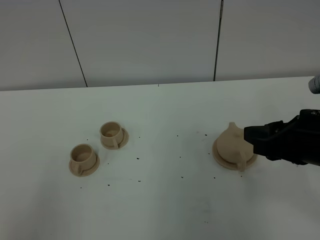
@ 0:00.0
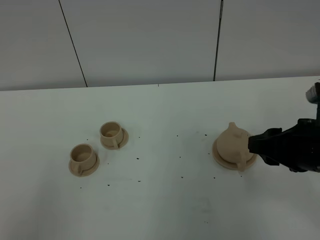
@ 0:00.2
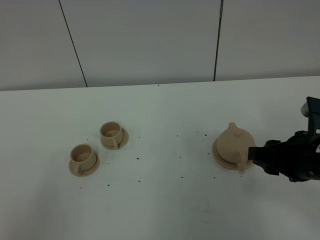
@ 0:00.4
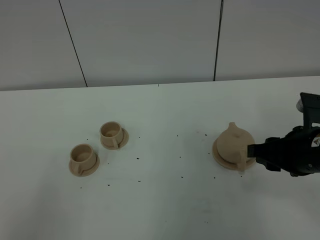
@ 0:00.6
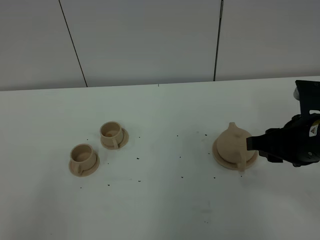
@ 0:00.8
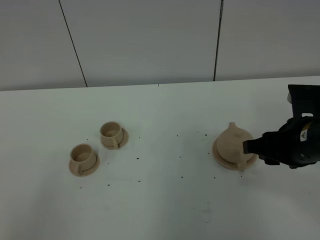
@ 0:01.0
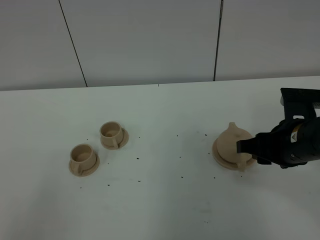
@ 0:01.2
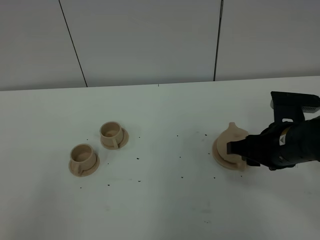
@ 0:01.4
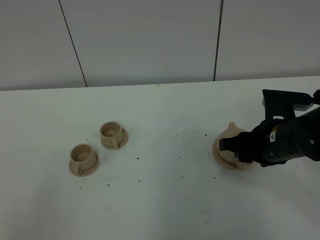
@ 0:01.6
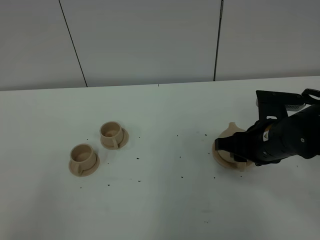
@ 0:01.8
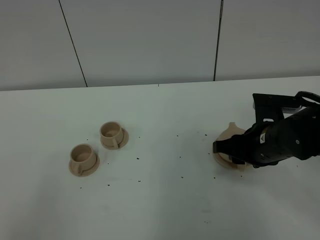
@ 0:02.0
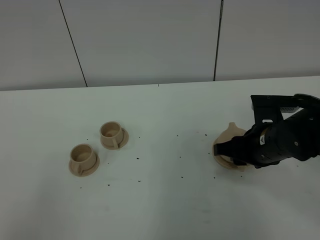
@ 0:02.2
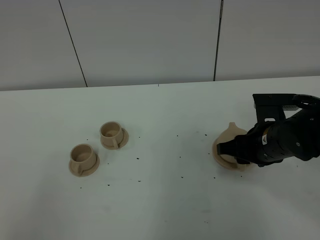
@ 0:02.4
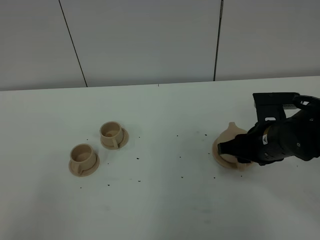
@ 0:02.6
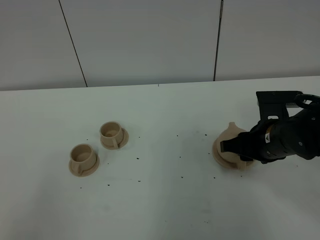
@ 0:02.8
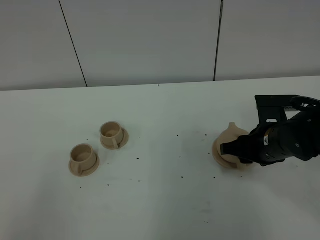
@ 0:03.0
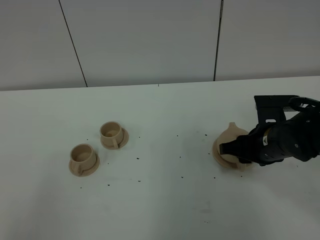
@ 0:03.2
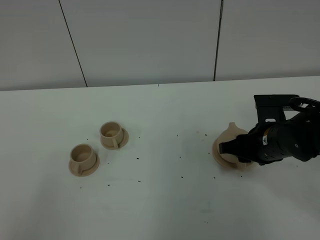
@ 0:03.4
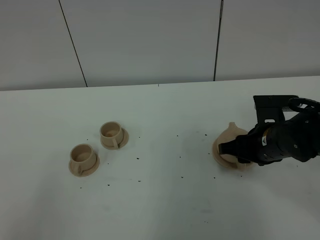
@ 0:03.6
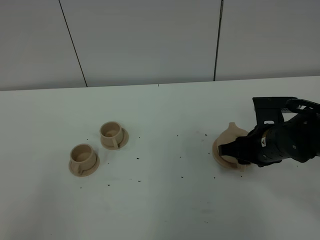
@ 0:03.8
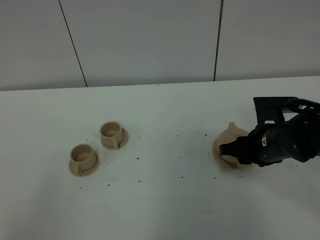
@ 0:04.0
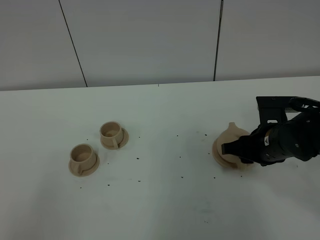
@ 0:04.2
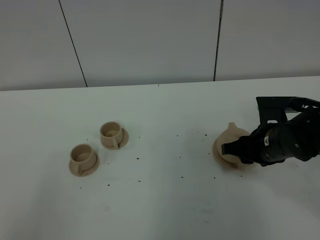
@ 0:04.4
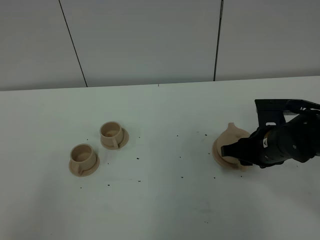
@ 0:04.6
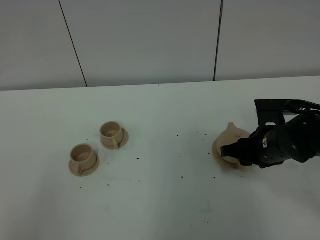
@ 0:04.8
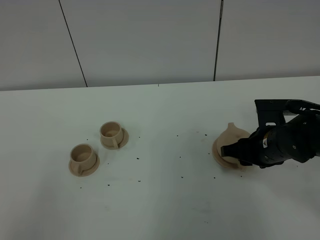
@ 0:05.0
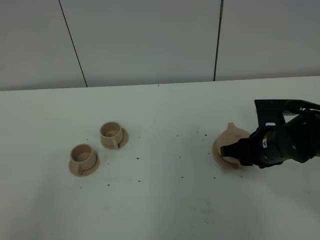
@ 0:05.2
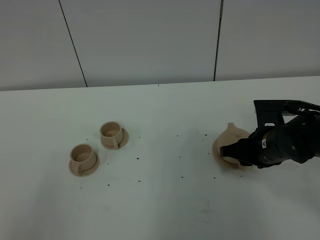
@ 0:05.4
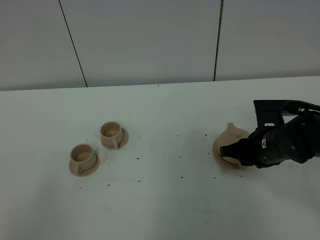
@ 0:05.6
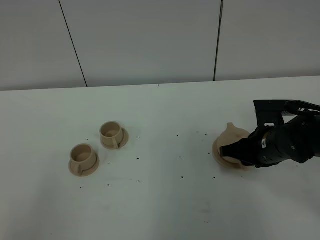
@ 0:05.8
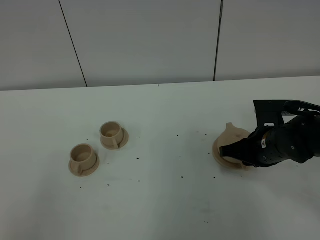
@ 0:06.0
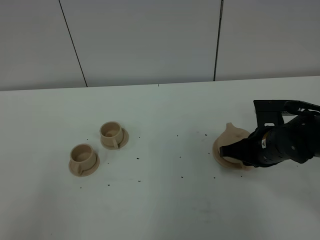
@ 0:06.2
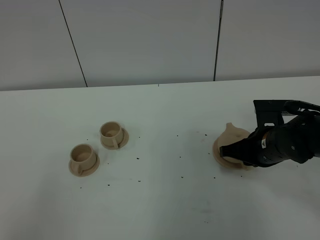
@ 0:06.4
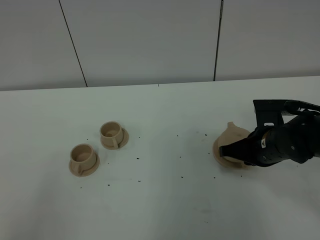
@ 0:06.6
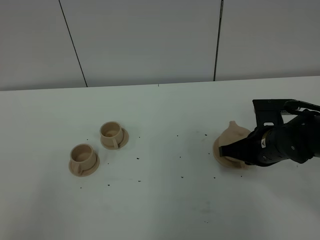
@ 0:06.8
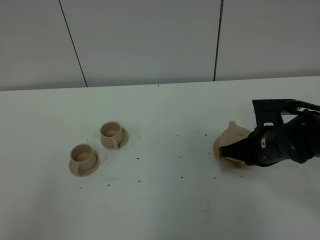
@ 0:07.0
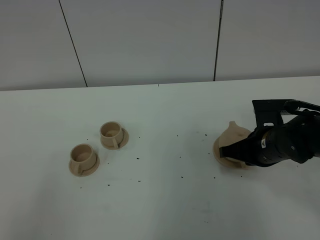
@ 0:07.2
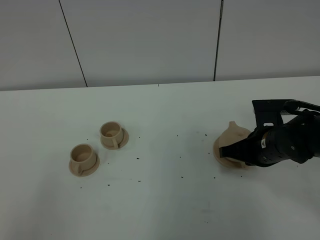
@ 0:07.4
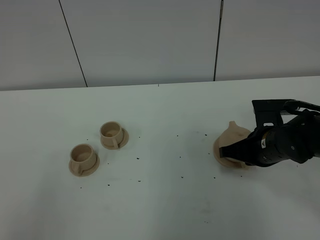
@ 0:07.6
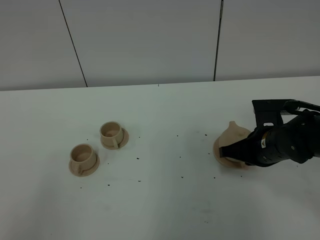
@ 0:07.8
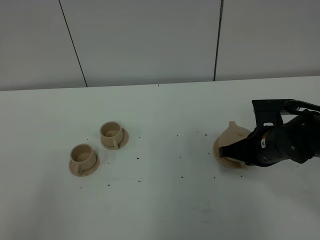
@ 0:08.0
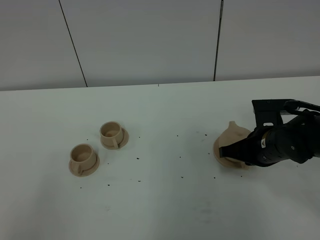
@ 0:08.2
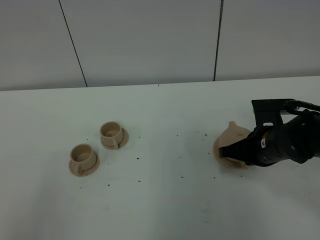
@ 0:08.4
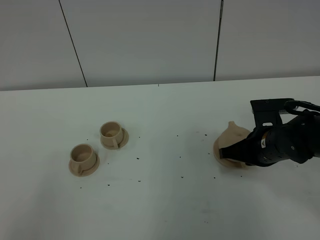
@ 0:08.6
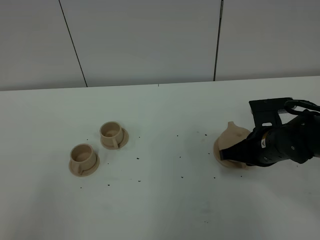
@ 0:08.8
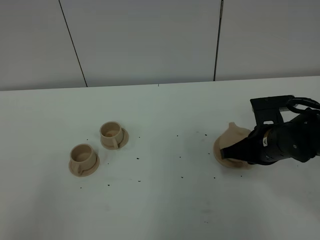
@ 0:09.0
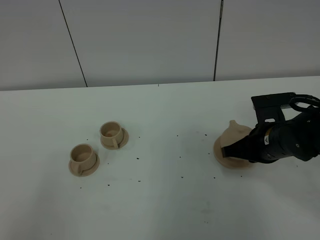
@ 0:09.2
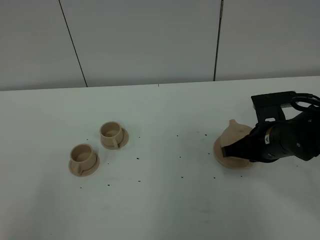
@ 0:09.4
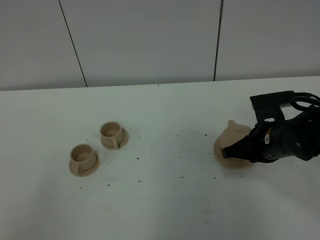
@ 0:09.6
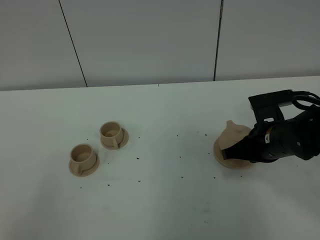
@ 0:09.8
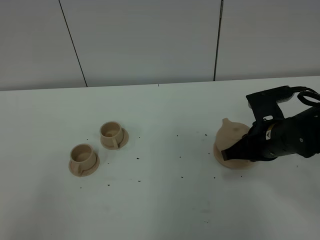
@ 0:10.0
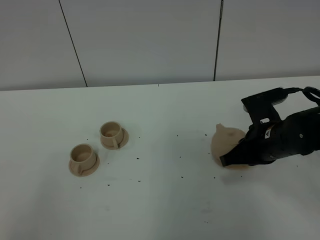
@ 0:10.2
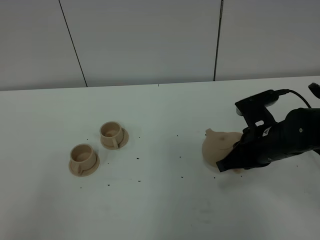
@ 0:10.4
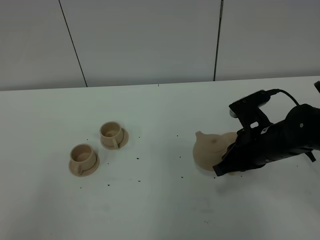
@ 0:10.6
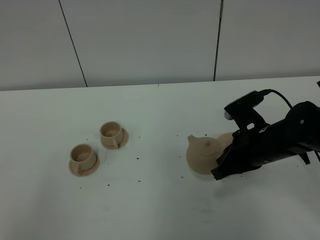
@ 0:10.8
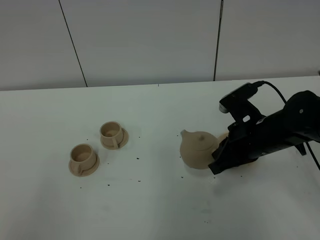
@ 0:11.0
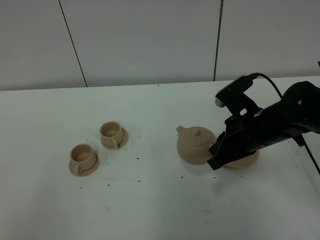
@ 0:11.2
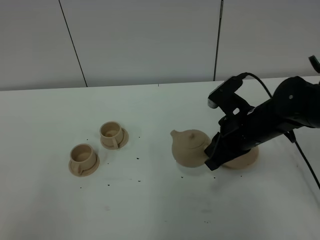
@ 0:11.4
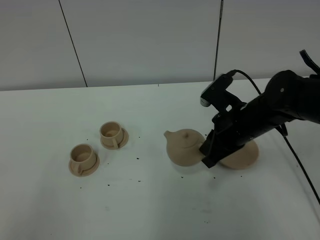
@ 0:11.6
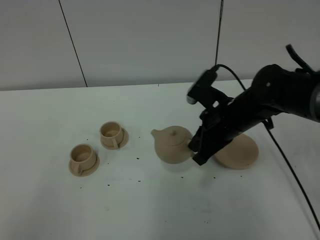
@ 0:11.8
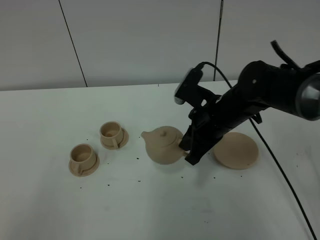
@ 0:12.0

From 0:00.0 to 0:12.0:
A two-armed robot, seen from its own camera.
Task of the whole recording: grasp the brown teapot and pour the tea into the two brown teacups one by one, put the brown teapot back in its original place.
From 0:00.0 to 0:01.6: The right gripper heads downward and forward, covering some 10 cm.
From 0:01.6 to 0:03.0: There are only small adjustments of the grippers.
From 0:03.0 to 0:04.4: The two grippers keep their place.
From 0:04.4 to 0:06.0: The right gripper closes its fingers.
From 0:06.0 to 0:07.6: The two grippers keep their place.
From 0:07.6 to 0:09.0: Both grippers stay put.
From 0:09.0 to 0:10.4: There are only small adjustments of the grippers.
From 0:10.4 to 0:12.0: The right gripper shifts some 10 cm to the left.

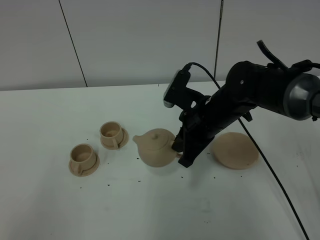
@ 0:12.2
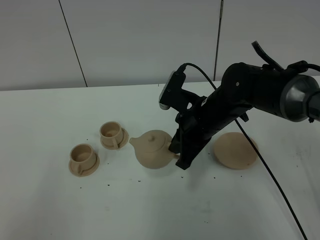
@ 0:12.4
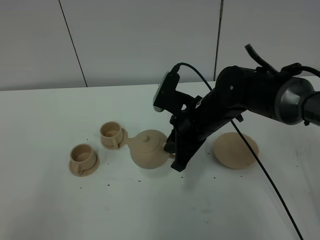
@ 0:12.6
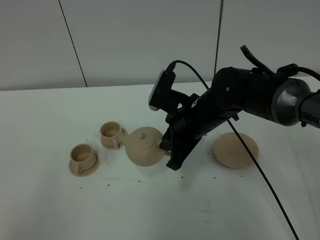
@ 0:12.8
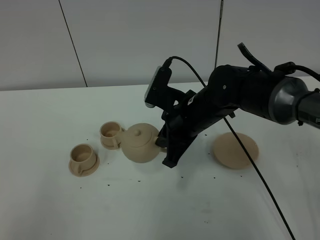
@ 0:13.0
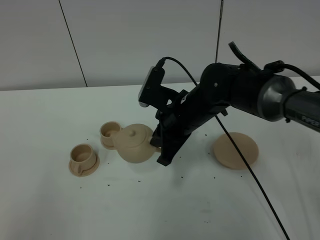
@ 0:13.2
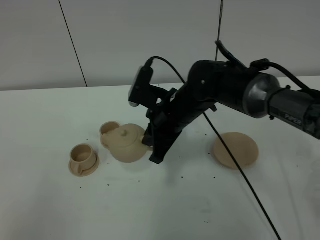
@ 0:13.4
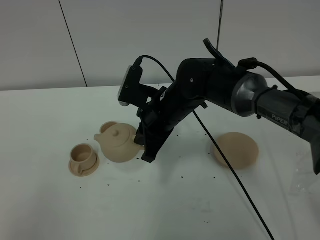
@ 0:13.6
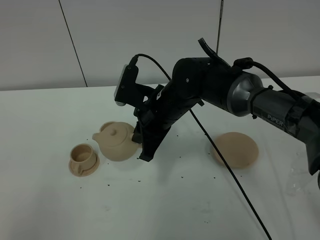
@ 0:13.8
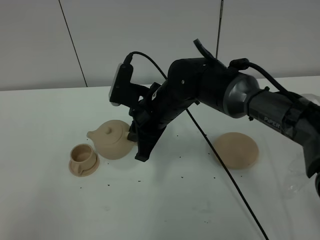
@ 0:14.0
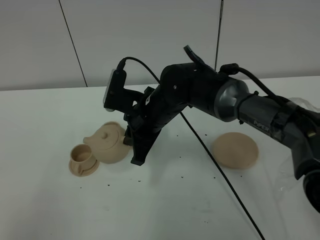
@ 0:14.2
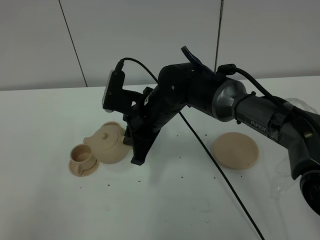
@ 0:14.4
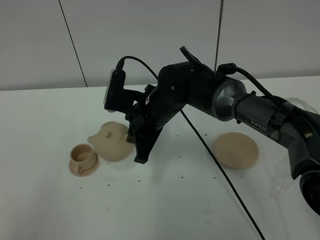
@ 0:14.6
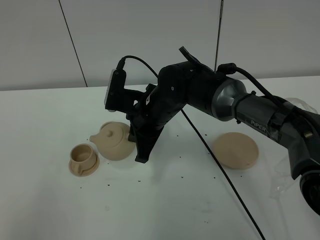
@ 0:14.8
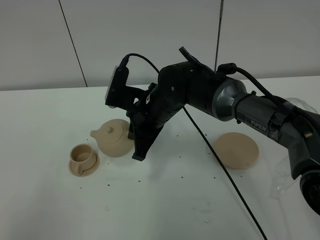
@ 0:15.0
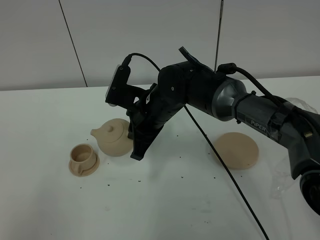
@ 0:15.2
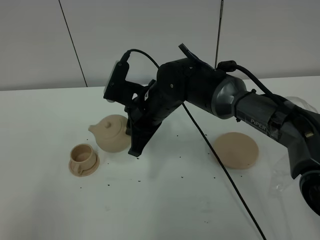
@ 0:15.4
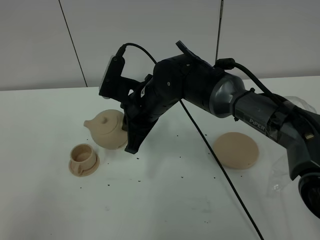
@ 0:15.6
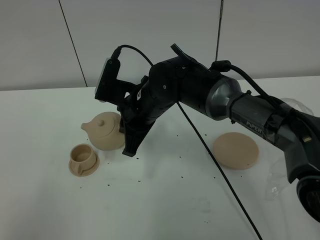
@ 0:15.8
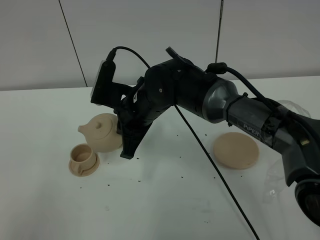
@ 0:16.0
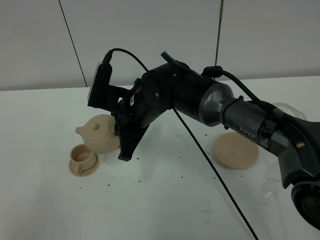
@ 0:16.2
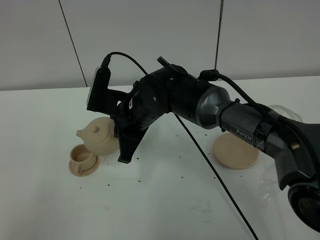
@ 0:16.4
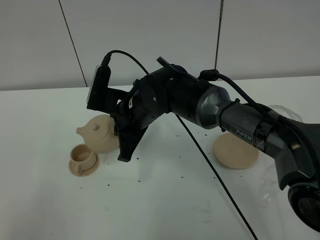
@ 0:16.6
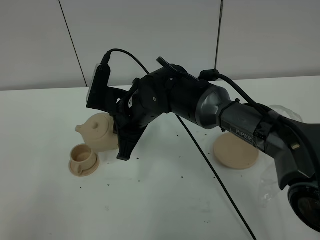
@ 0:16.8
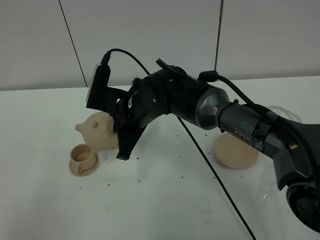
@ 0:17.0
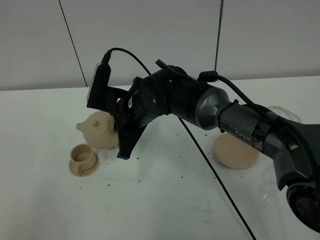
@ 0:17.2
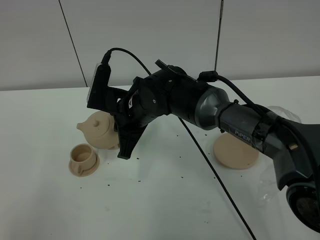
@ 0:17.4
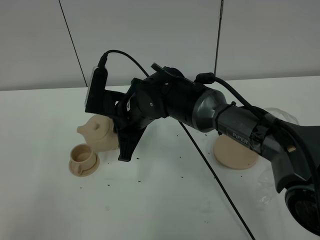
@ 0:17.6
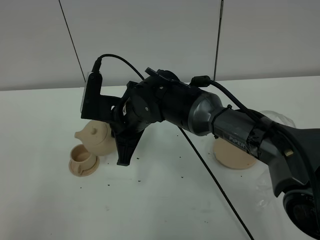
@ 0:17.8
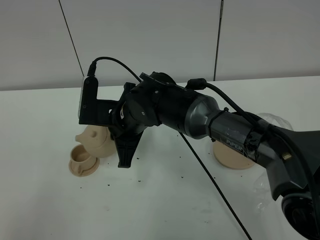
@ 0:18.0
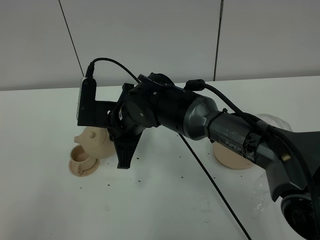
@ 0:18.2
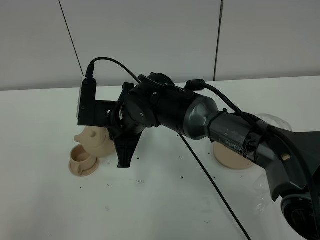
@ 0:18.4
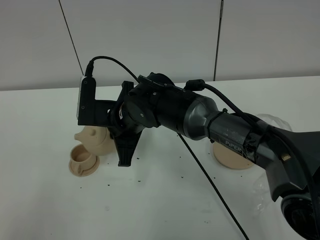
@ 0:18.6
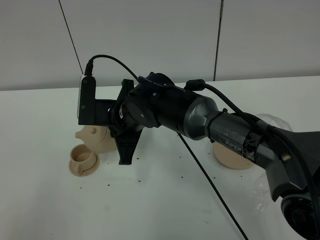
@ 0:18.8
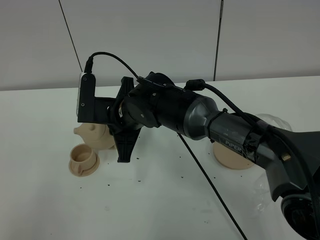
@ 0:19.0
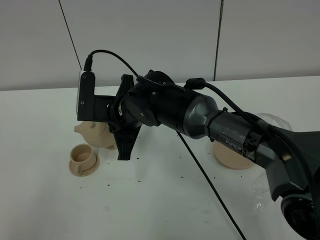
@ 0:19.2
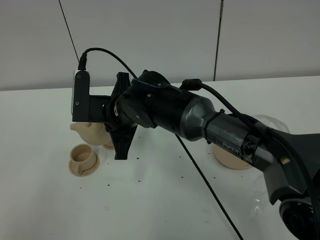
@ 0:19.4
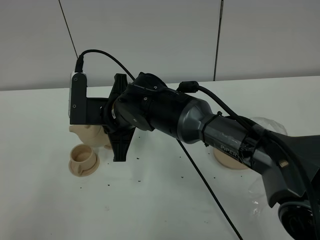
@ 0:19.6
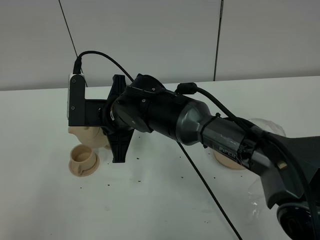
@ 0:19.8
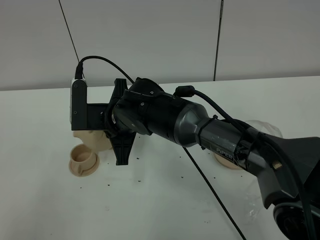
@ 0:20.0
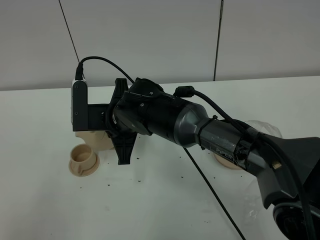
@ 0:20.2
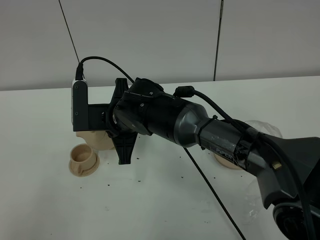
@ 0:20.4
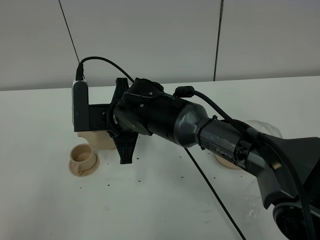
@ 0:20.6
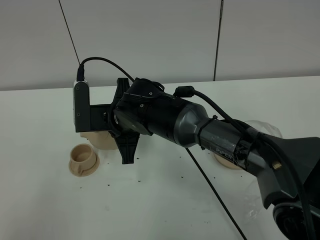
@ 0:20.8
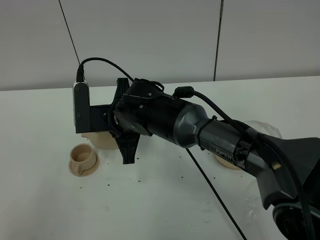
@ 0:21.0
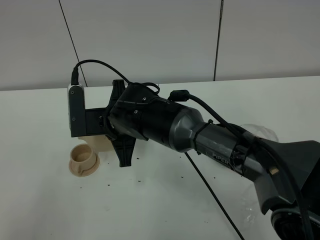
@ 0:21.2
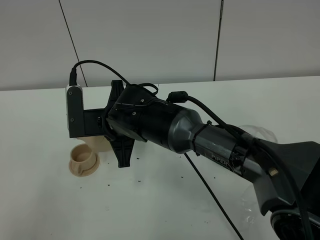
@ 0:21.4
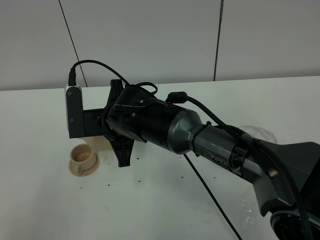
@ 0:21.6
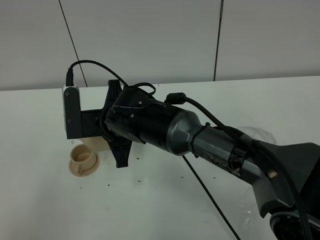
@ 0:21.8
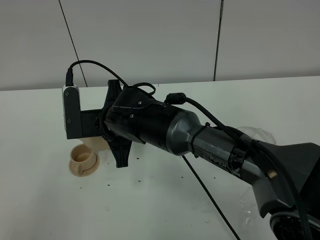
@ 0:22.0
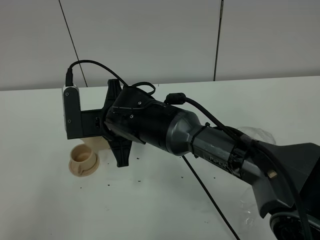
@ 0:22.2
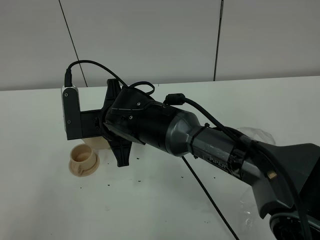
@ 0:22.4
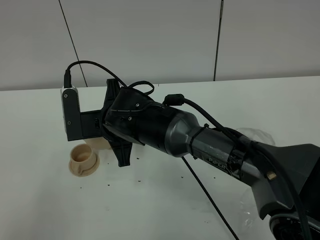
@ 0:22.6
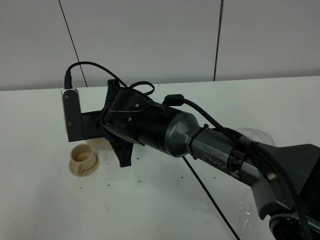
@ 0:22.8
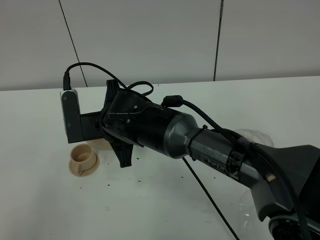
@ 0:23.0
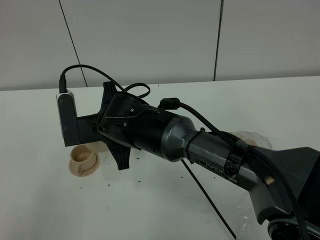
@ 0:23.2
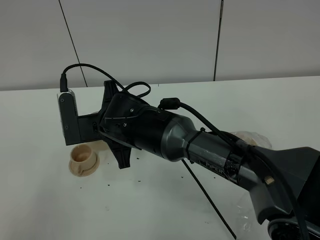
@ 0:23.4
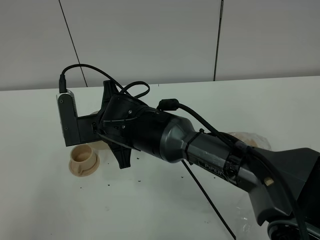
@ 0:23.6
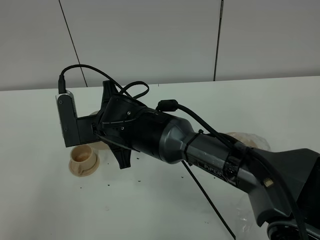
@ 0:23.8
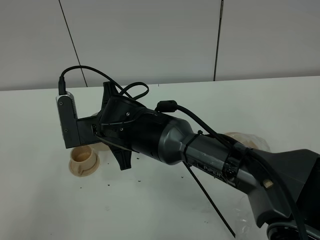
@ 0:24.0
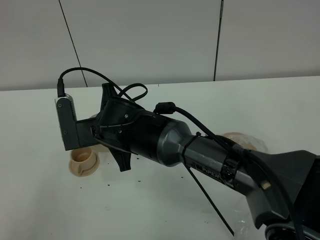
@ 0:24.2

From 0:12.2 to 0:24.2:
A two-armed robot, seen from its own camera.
Task of the whole recording: grasp the brown teapot and pour the tea into the two brown teacups one by one, put the brown teapot back in its original place.
From 0:12.2 to 0:13.8: The right gripper travels to the left by about 10 cm.
From 0:13.8 to 0:18.2: The grippers make only small movements.
From 0:18.2 to 0:21.2: The grippers make only small movements.
From 0:21.2 to 0:22.6: Neither gripper changes place.
From 0:22.6 to 0:24.2: The grippers make only small movements.
